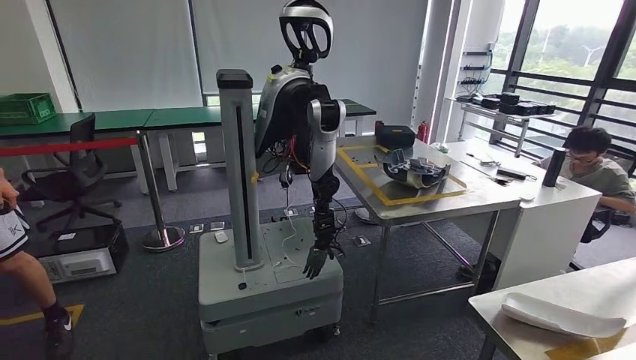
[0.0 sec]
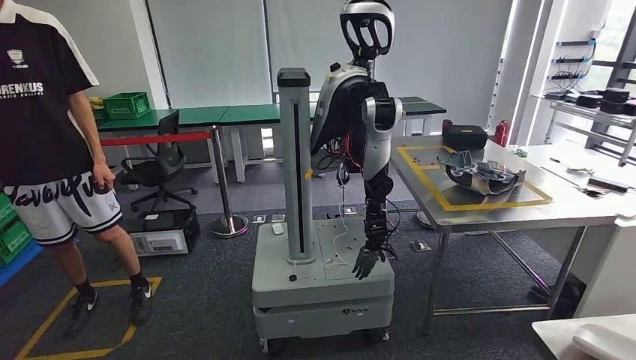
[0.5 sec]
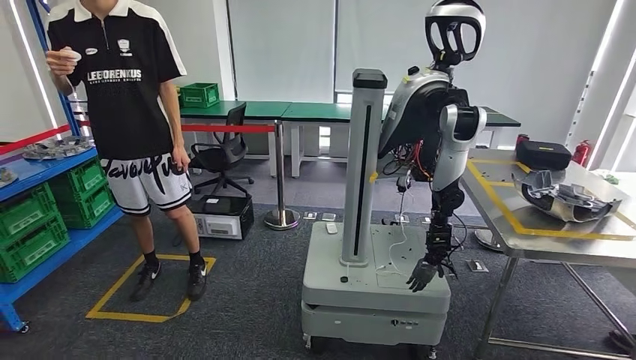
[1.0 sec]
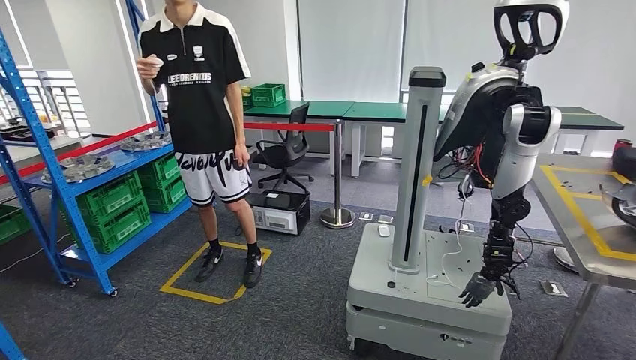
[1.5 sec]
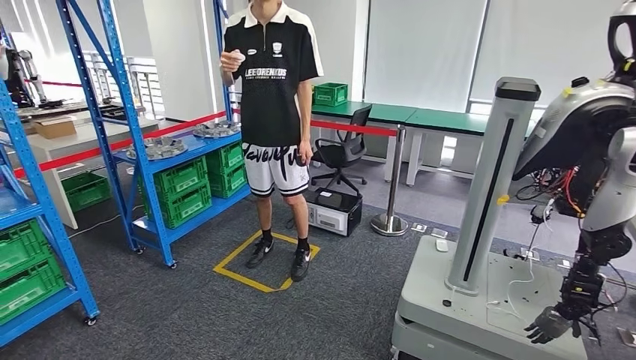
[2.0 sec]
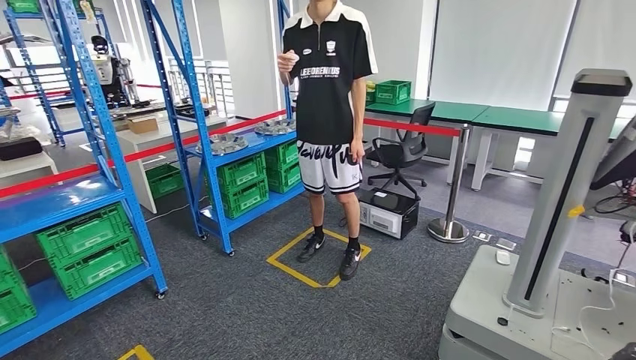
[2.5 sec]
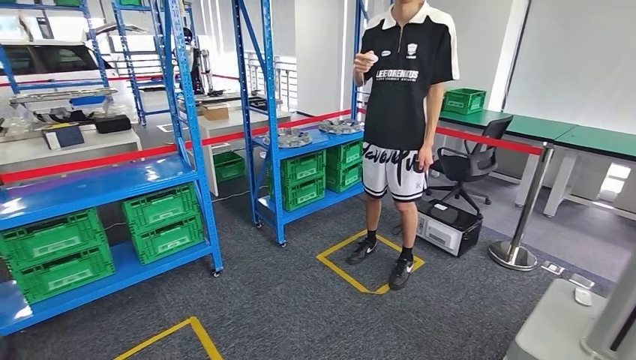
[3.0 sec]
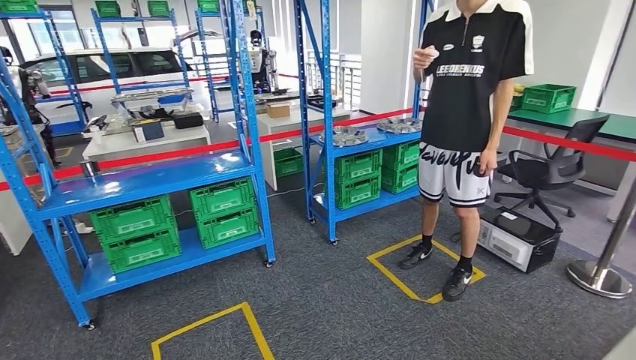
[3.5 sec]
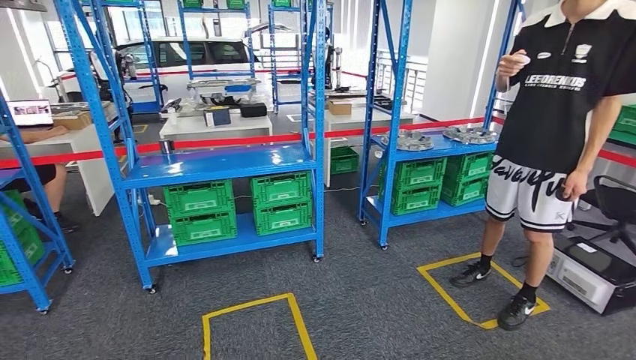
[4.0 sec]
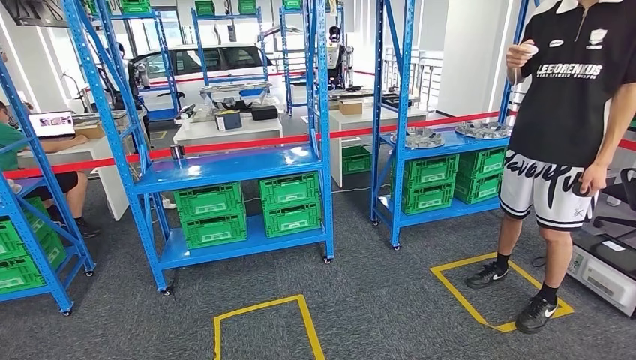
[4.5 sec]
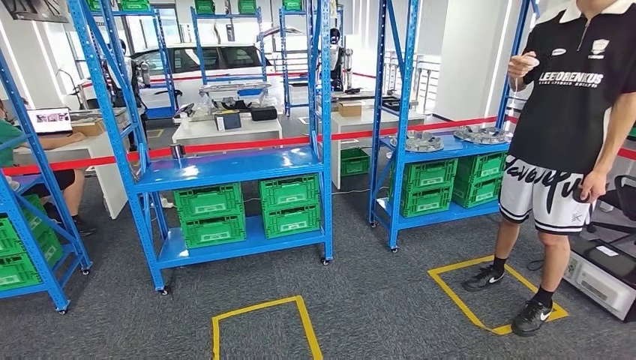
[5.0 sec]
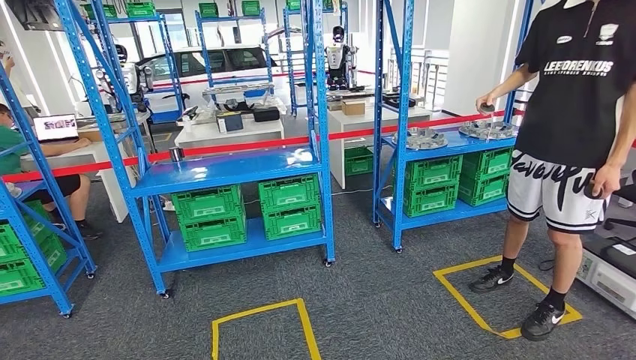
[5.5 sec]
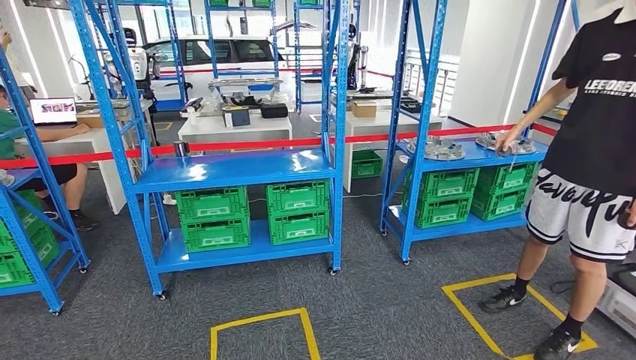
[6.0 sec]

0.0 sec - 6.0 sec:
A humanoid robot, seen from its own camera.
Step, 0.0 sec - 2.5 sec: Insert the small parts into the corresponding slots on the workbench.
Step, 3.0 sec - 6.0 sec: Return to the initial position at the workbench.
